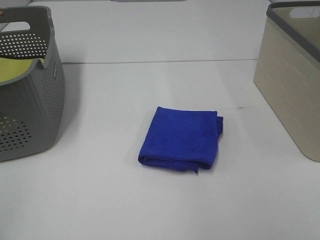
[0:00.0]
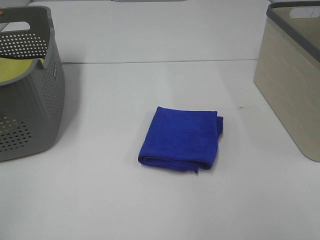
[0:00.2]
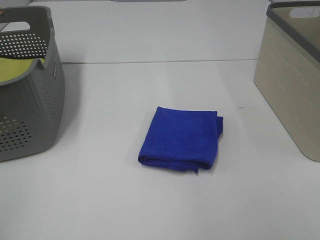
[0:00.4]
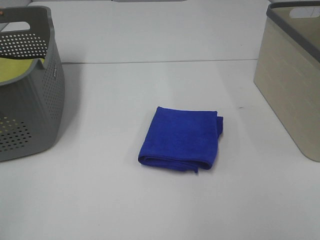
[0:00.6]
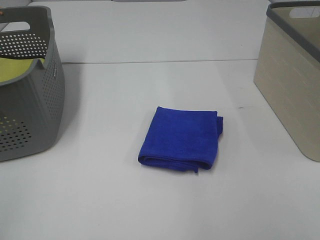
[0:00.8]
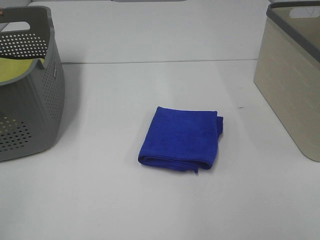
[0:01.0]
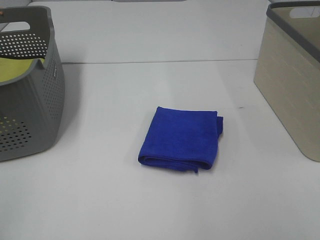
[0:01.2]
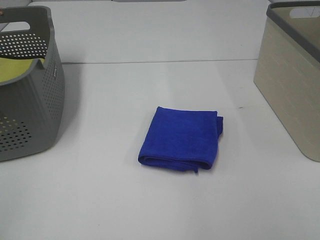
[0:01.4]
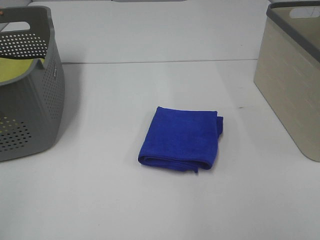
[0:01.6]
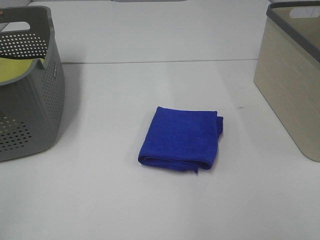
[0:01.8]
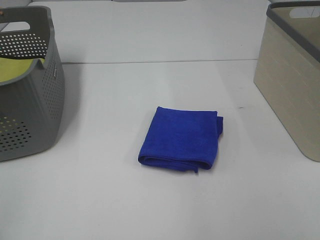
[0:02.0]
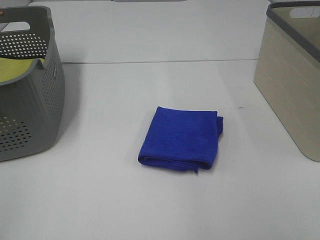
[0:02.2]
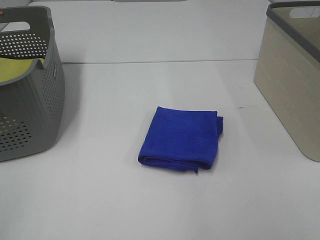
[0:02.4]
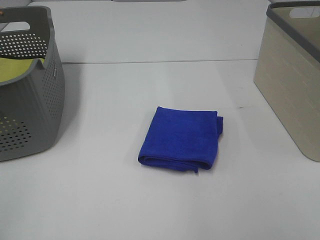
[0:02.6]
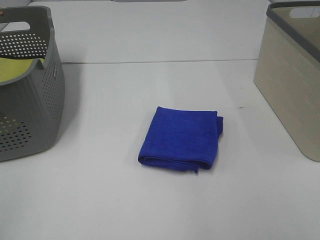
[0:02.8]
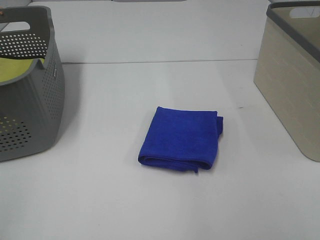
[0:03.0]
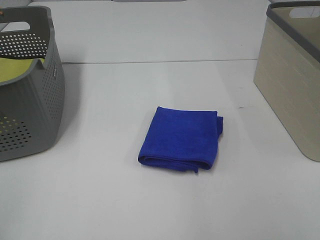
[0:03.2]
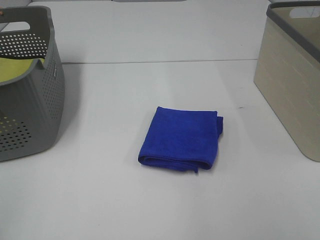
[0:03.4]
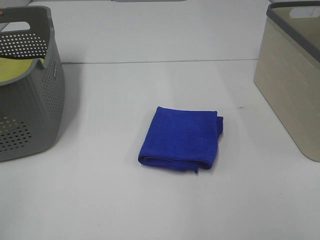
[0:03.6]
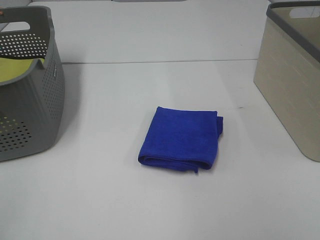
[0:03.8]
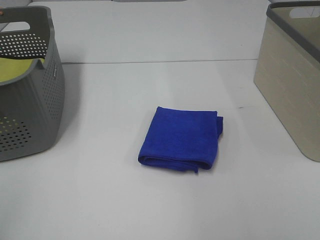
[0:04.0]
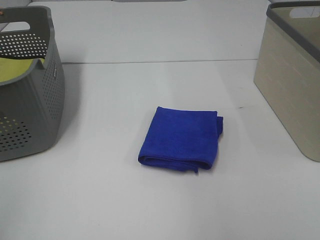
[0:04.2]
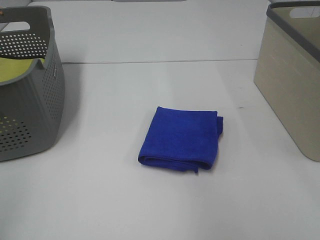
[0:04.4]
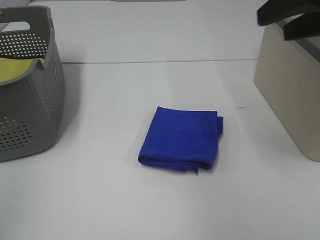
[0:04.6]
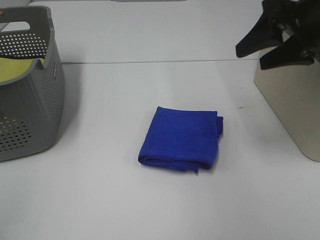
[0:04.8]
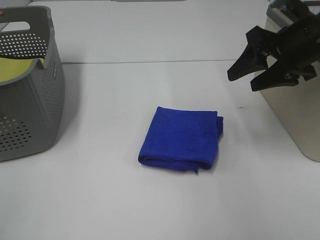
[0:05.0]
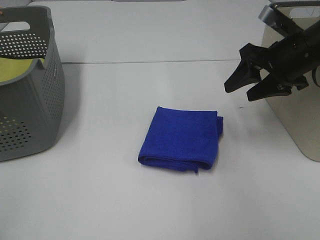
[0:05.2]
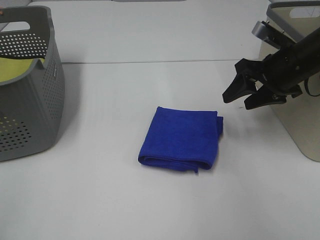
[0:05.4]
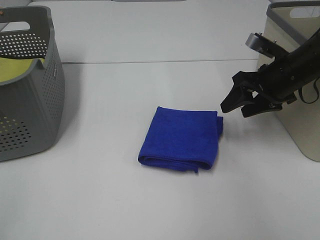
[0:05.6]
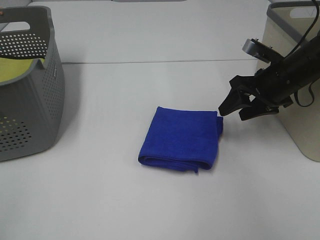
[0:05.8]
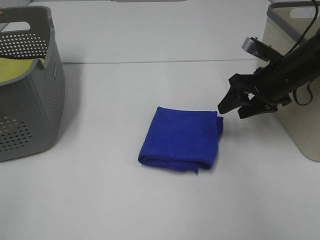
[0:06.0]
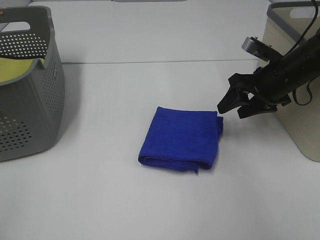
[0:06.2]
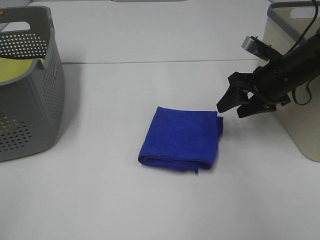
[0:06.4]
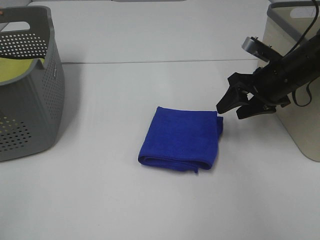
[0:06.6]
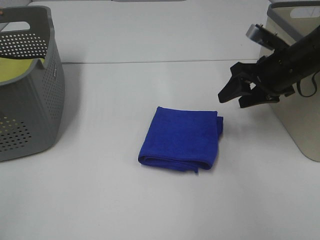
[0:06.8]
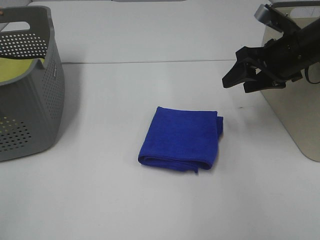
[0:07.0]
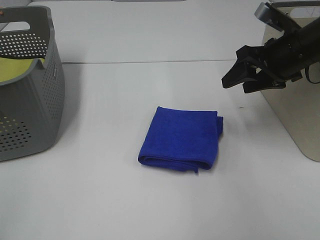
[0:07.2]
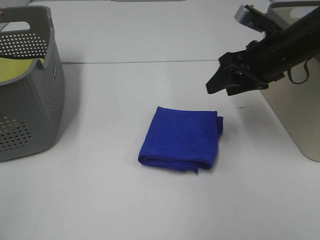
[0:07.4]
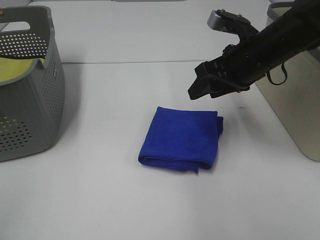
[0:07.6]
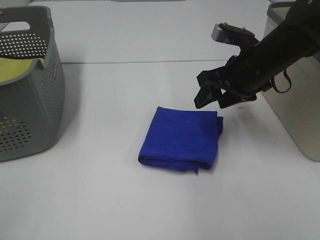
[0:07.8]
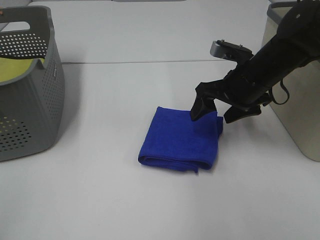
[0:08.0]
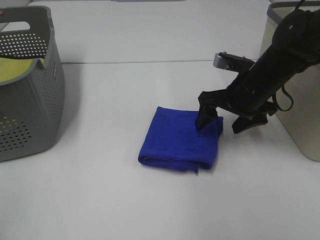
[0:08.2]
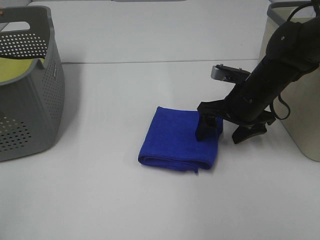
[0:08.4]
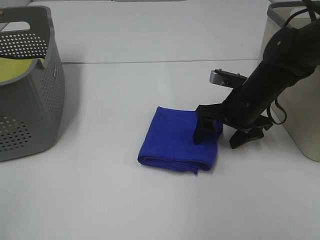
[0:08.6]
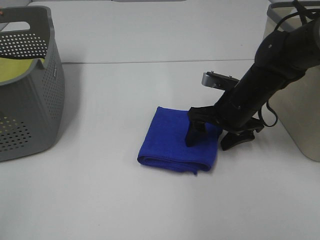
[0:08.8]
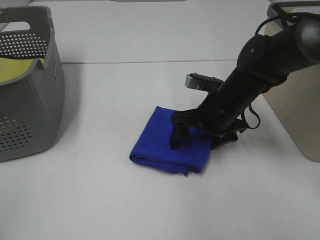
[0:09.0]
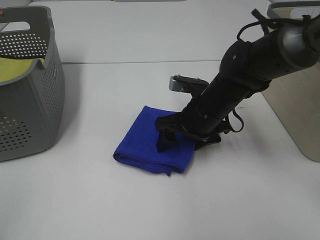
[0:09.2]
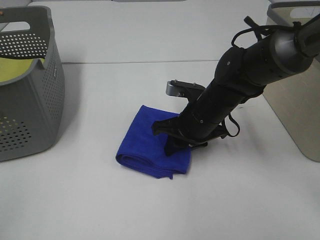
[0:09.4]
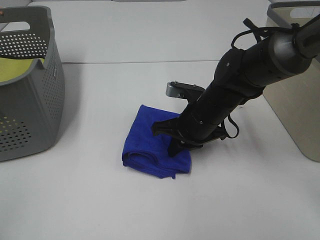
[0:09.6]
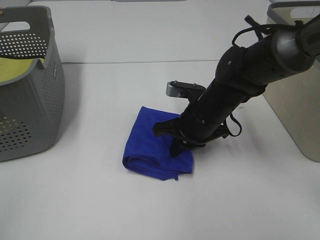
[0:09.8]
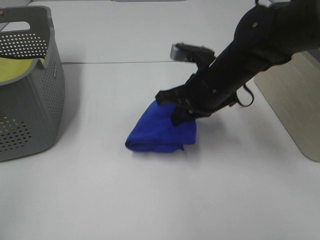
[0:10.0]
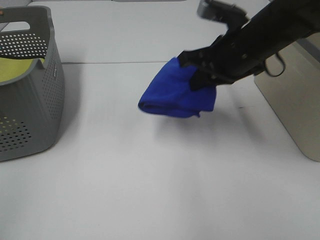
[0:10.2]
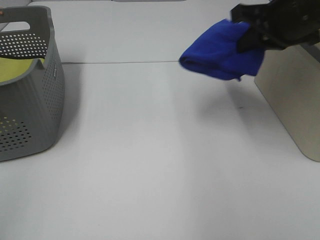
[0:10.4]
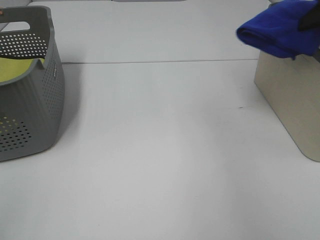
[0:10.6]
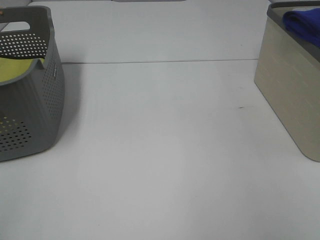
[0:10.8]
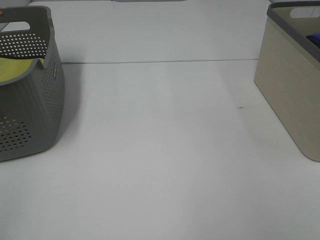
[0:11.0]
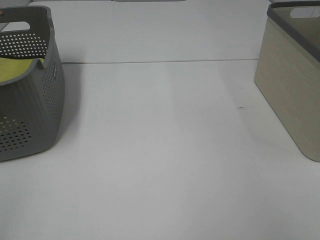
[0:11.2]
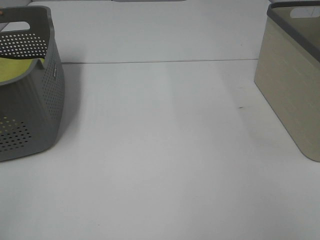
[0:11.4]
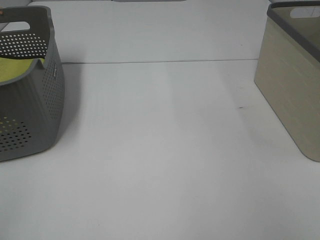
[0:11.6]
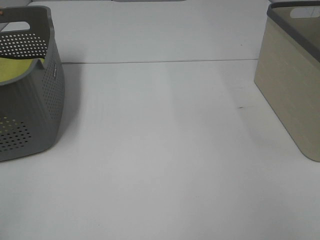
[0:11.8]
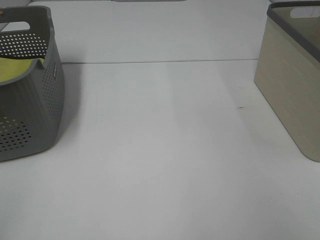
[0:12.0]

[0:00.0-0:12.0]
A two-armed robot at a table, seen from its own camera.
Step, 0:00.0 to 0:09.6: Right hand: grab the folded blue towel.
0:01.6 to 0:03.0: Both grippers stay about where they are.
0:04.4 to 0:06.0: The right gripper is displaced downward and forward by approximately 30 cm.
0:06.0 to 0:07.6: The right gripper shifts about 10 cm to the left and upward.
0:07.6 to 0:09.0: The right gripper goes approximately 10 cm downward.
0:09.0 to 0:10.4: The right gripper heads upward and to the right, covering approximately 20 cm, and closes its fingers.
0:10.4 to 0:12.0: The right gripper moves to the right and downward, roughly 20 cm, and opens up.
